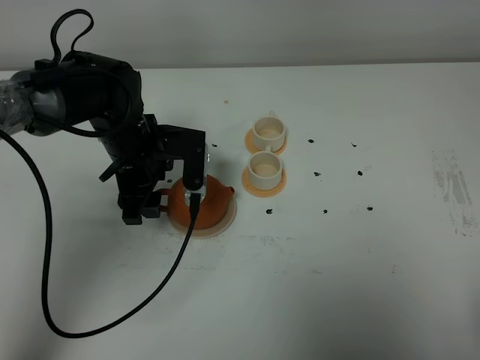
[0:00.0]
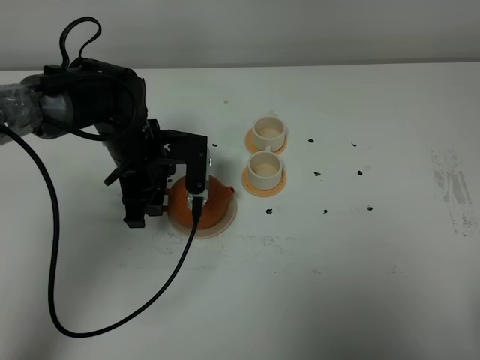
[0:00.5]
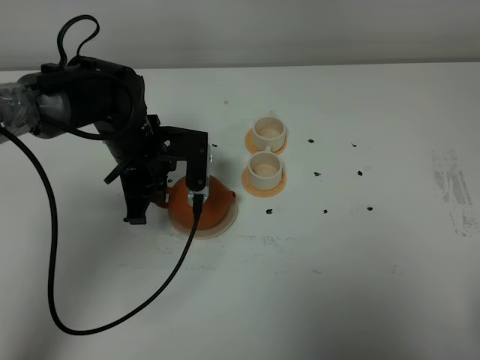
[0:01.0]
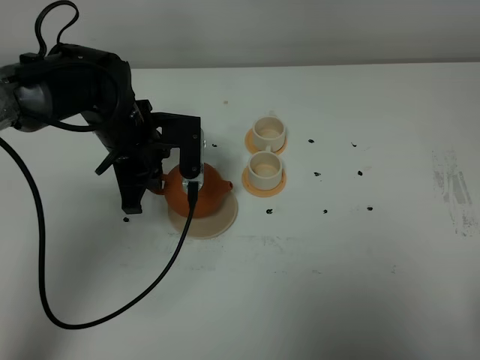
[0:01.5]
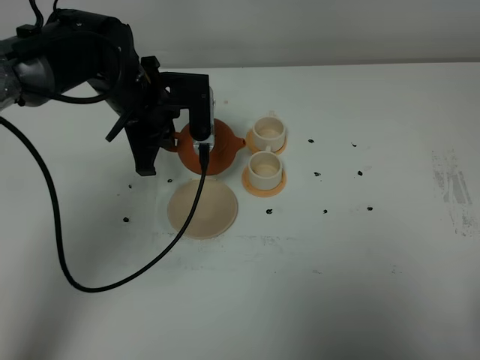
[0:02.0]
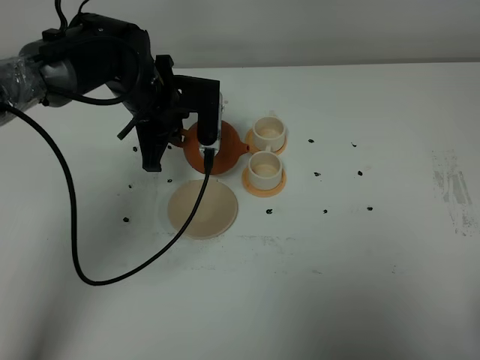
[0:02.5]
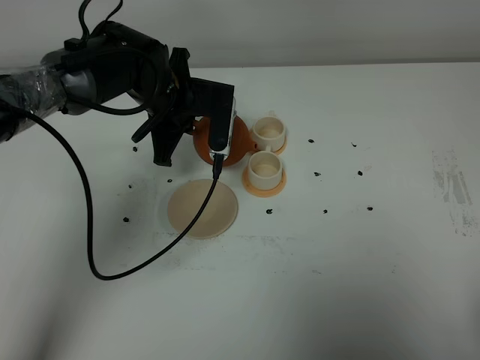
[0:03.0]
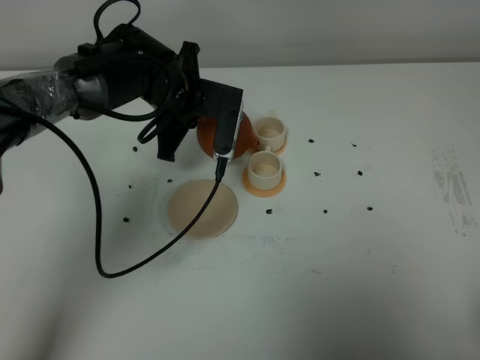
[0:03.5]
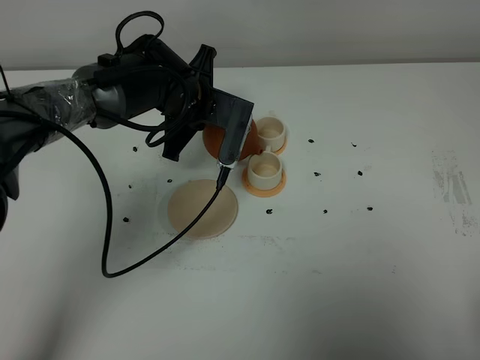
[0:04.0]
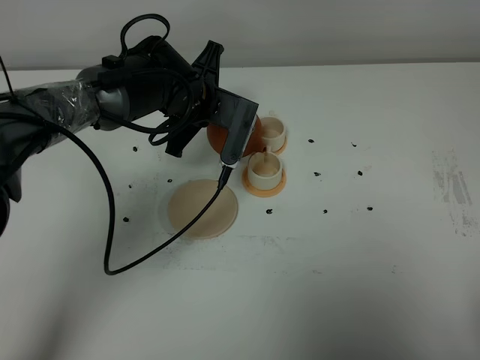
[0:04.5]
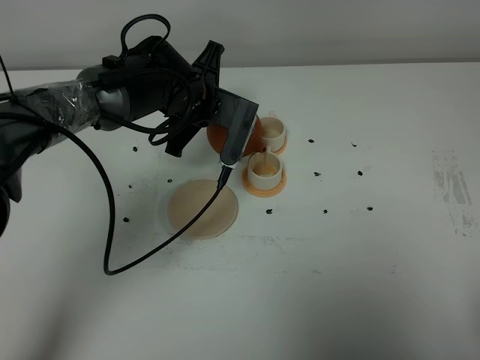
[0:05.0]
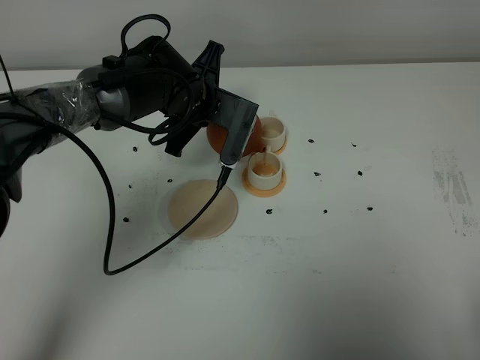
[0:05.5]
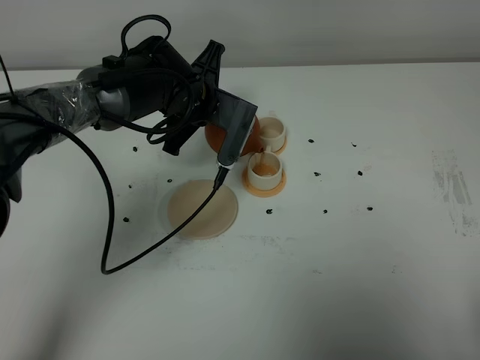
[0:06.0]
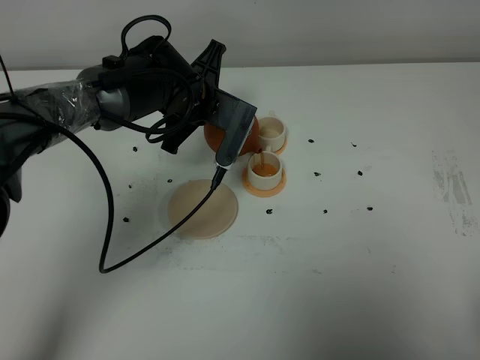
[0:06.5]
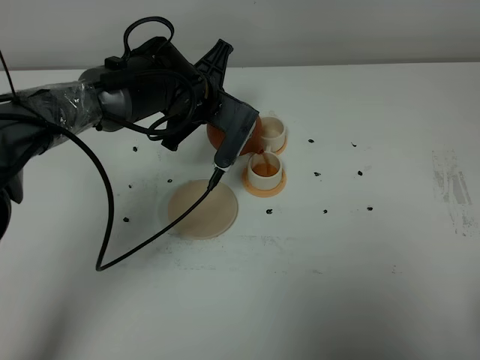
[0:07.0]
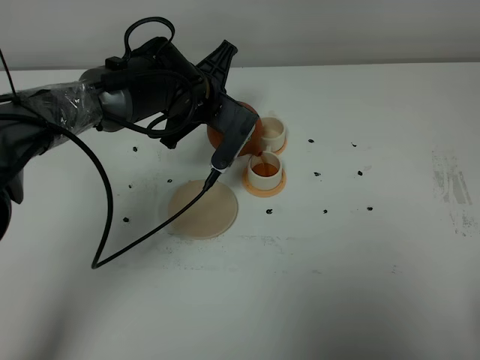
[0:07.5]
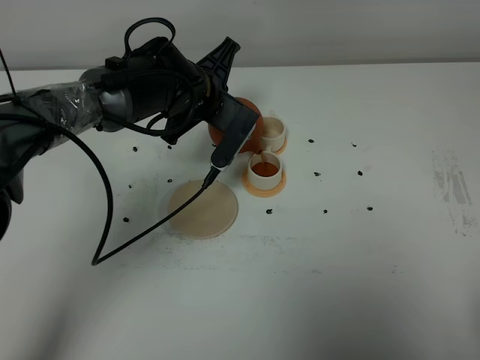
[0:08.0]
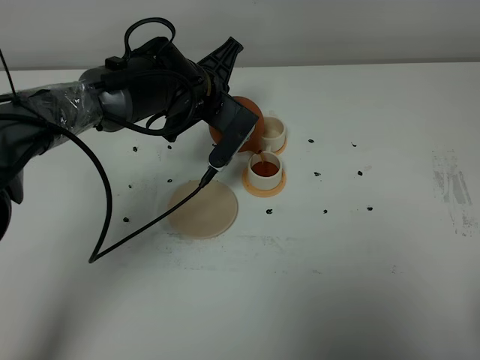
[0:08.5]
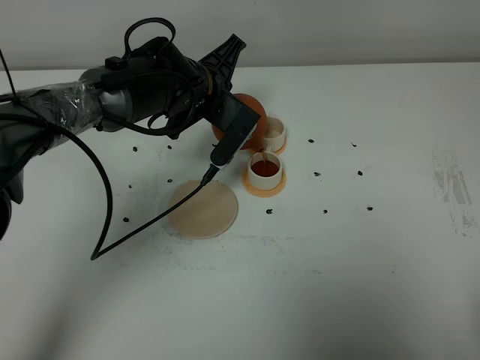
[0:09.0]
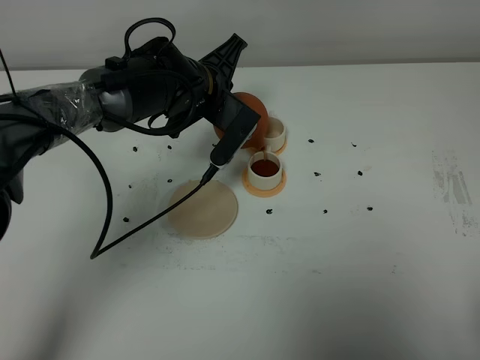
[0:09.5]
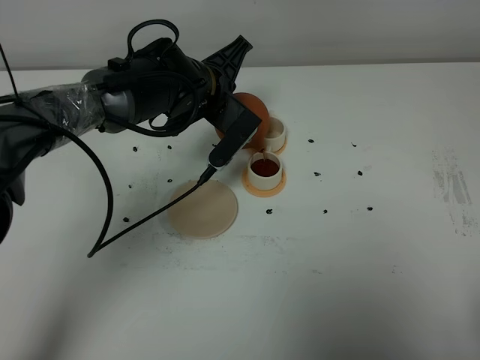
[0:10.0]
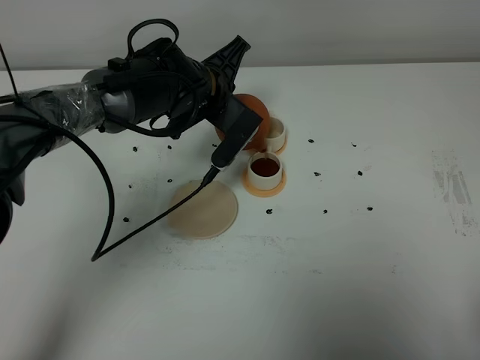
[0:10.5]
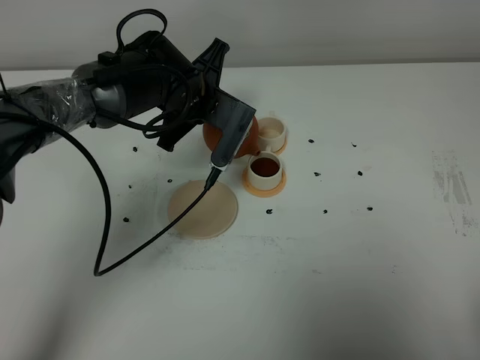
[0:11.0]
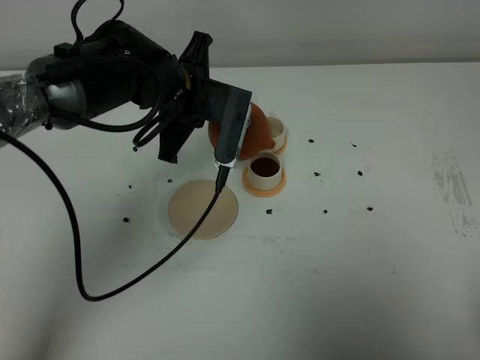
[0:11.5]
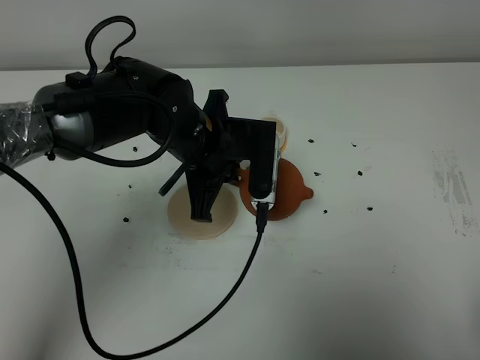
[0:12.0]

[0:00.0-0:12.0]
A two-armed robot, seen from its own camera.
Task of the whole recording: grasp the brown teapot and pour the tea into the two white teacups one by one, put the brown teapot back in its original place.
0.0 to 2.0 s: The left gripper ends up roughly 5 cm from where it was, and closes.
2.0 to 4.0 s: The left gripper moves to the right, roughly 5 cm.
4.0 to 8.0 s: The grippers make only small movements.
8.0 to 10.0 s: There are only small adjustments of the grippers.
10.0 to 12.0 s: The left gripper heads backward, covering approximately 10 cm.

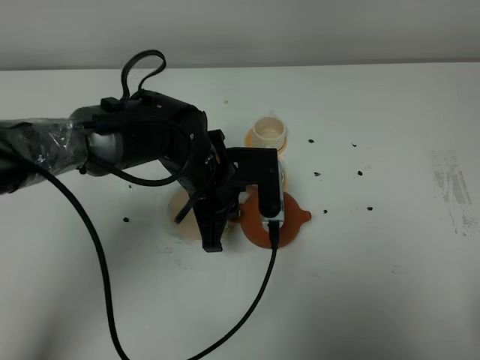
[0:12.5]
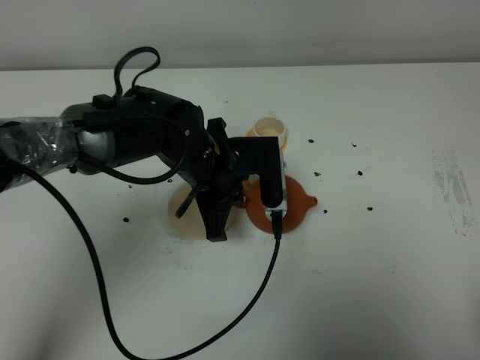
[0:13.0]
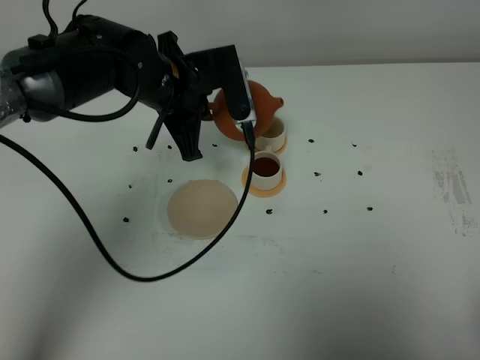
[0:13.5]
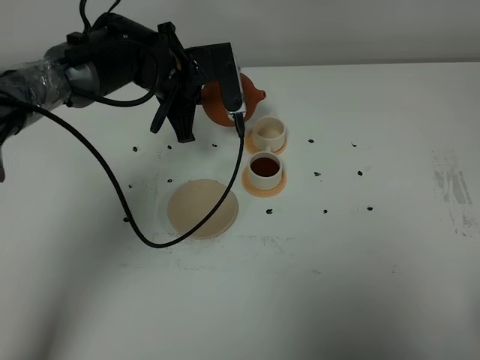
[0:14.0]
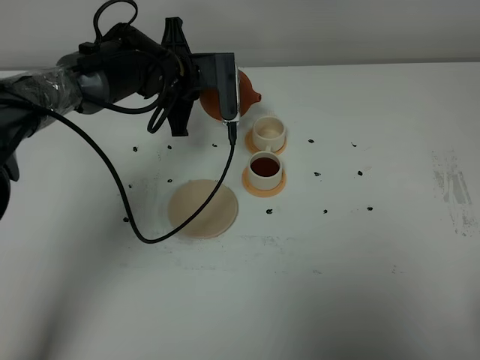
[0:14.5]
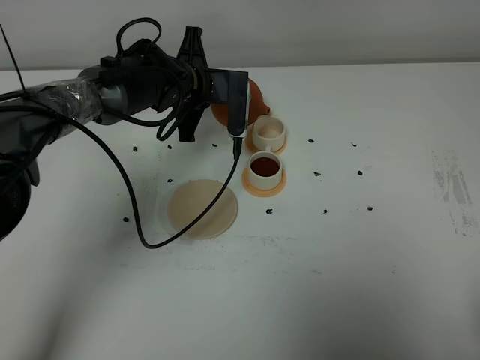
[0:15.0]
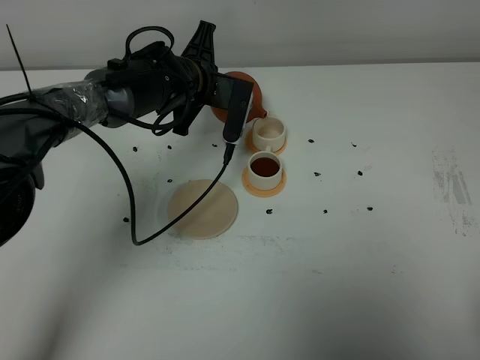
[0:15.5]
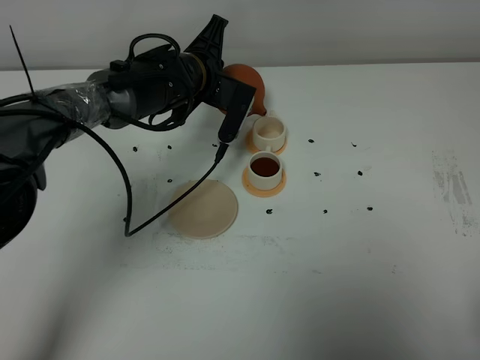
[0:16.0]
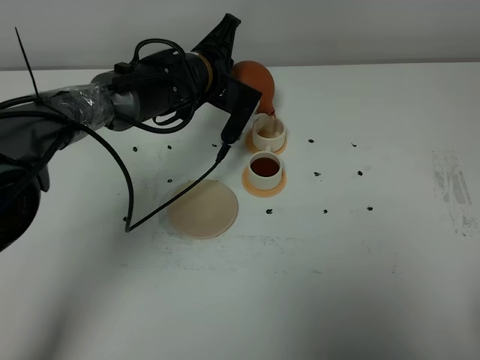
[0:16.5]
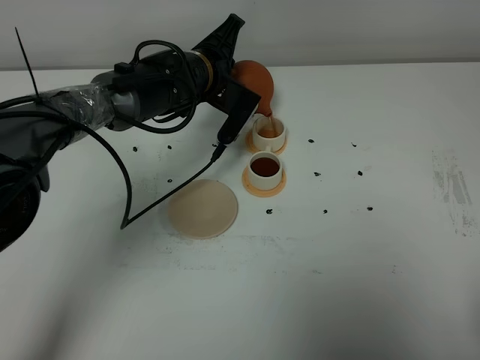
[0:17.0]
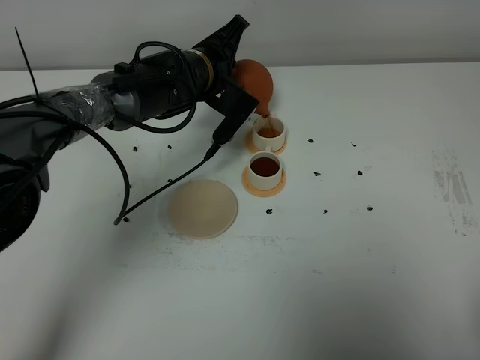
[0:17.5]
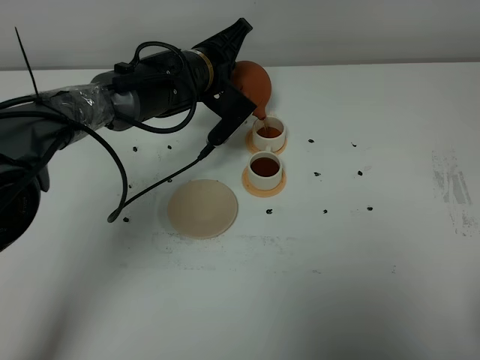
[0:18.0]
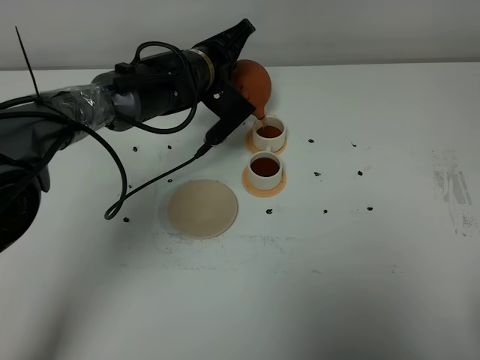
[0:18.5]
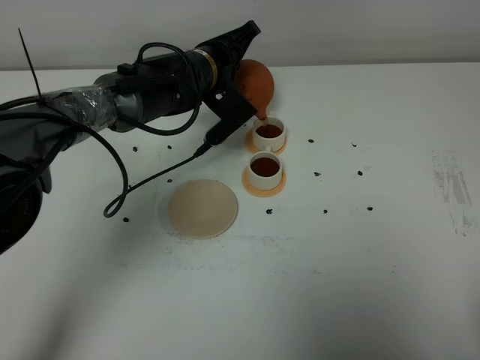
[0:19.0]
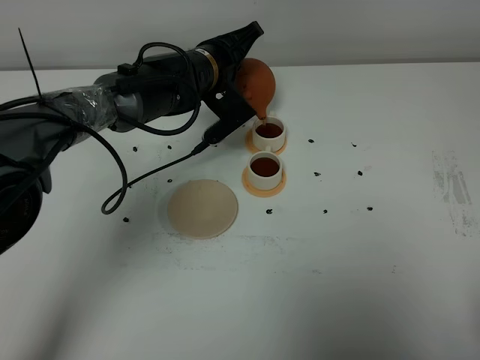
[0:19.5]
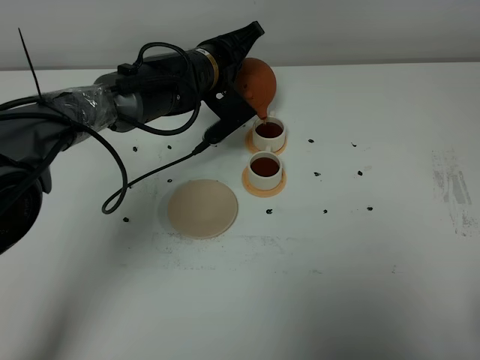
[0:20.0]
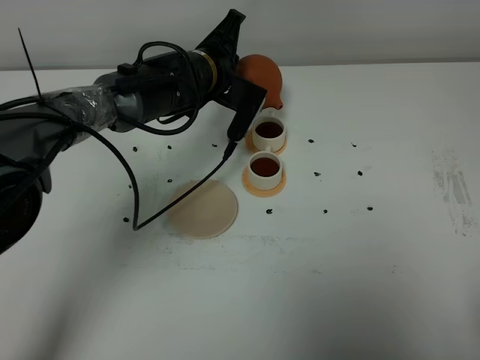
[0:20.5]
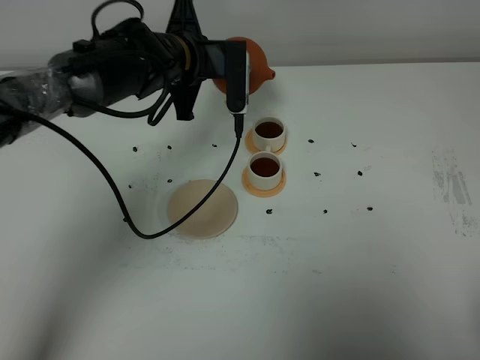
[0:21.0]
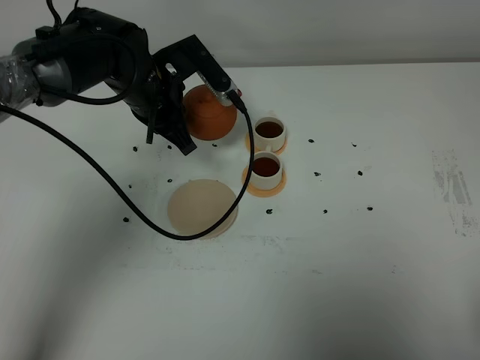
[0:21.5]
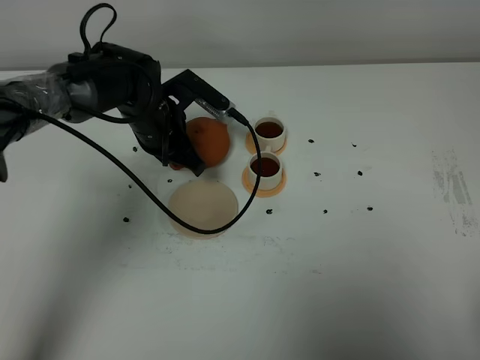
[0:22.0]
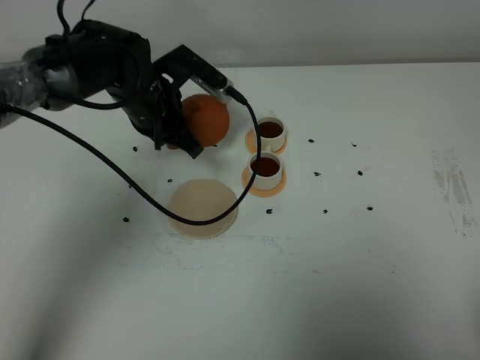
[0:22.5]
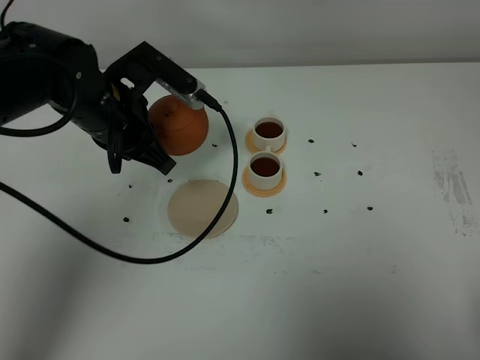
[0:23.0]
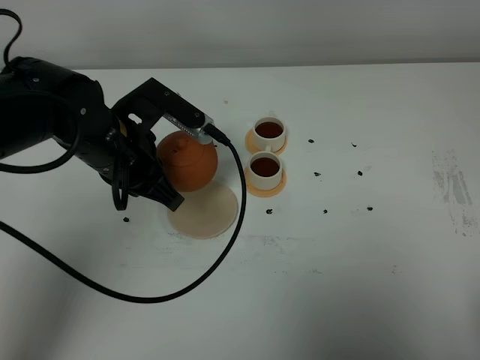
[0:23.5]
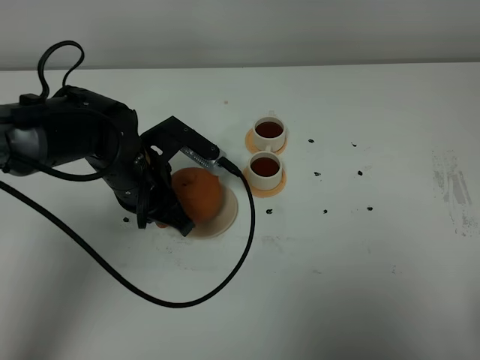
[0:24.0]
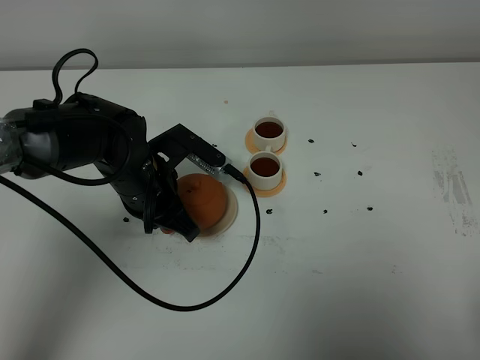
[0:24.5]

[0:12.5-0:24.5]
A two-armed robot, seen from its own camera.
Task of the whole recording: grasp the brown teapot and pour the tea into the two white teacups one by one, put the brown teapot back in its original place.
Step, 12.5 to 20.5 s: Pour tea into the teacup with the left gripper.
12.5 to 14.5 s: The left gripper travels forward by roughly 15 cm.
16.5 to 18.5 s: The grippers stay close to where they were, moving slightly.
18.5 to 20.5 s: The grippers move only a little.
20.5 to 22.5 s: The left gripper goes up and down, approximately 10 cm each way, reversing 2 times.
22.5 to 24.5 s: The left gripper travels backward by some 10 cm.

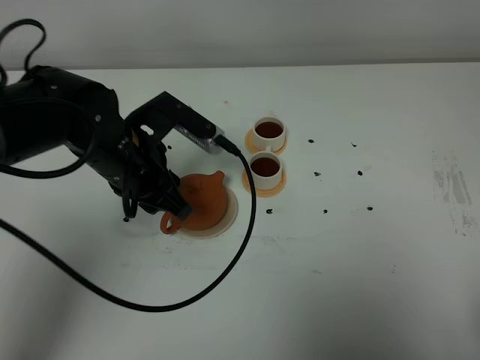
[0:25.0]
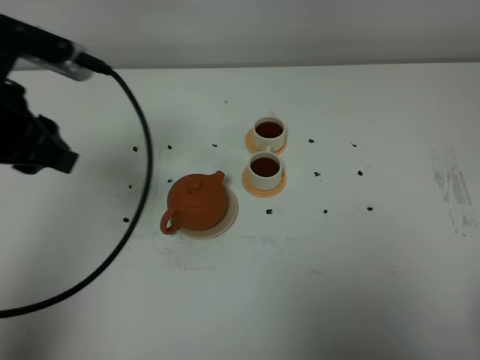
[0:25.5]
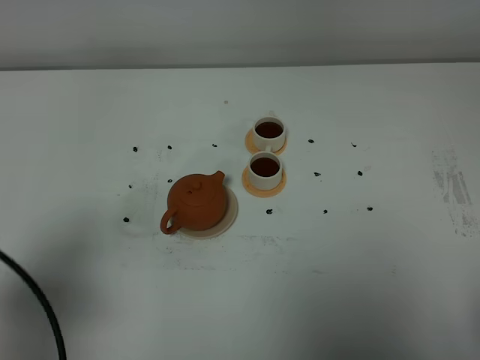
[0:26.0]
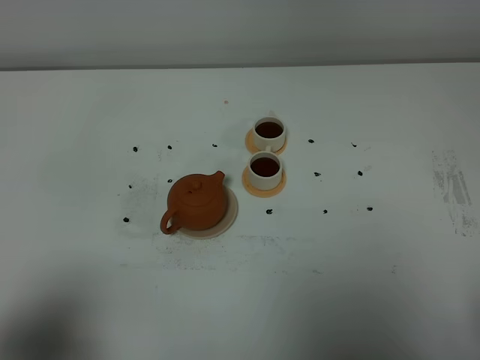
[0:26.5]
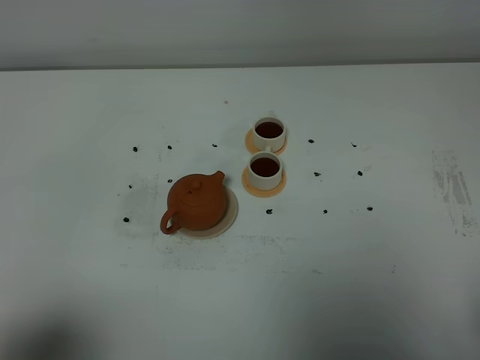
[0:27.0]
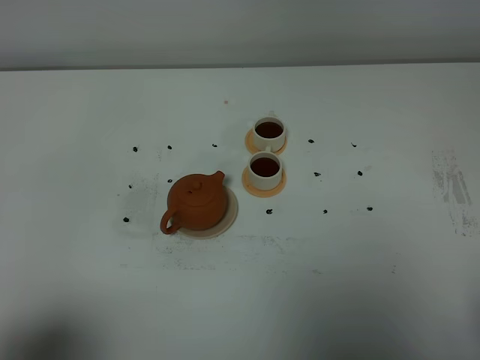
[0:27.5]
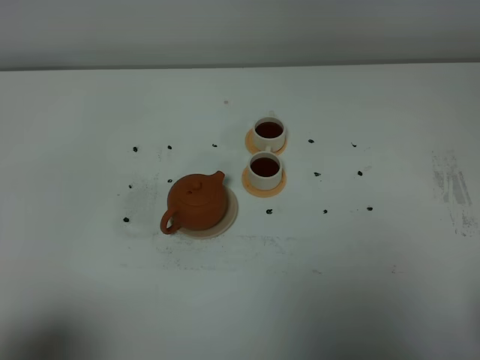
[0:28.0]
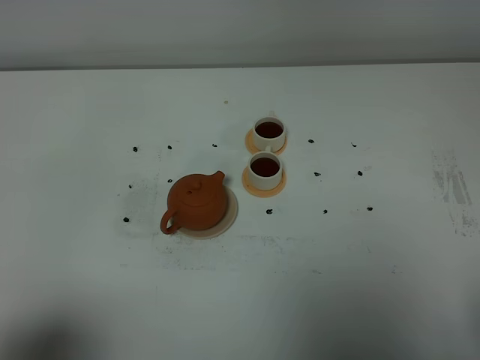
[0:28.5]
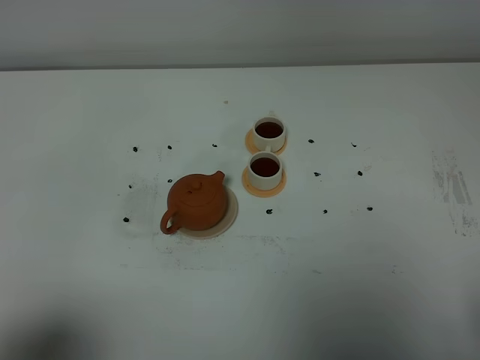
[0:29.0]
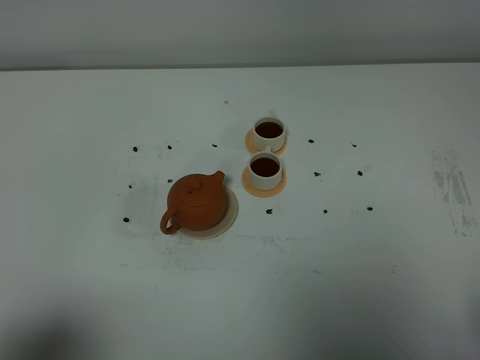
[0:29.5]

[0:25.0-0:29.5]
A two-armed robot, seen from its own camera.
Task of the whole recording: grasp the brown teapot and pour the tea into the two white teacups one by one, put the brown teapot back in its original place.
25.0 to 27.0 s: The left gripper goes about 35 cm backward and to the left.
27.0 to 29.5 s: Both grippers stay about where they are.
